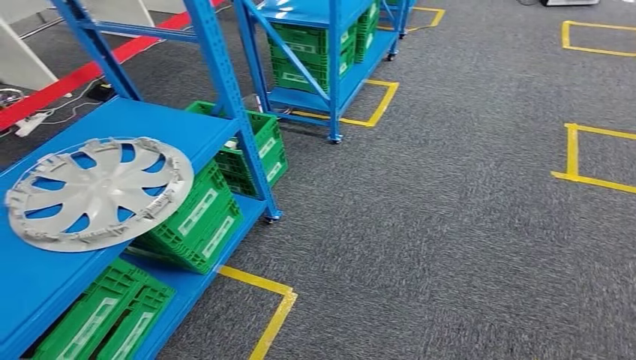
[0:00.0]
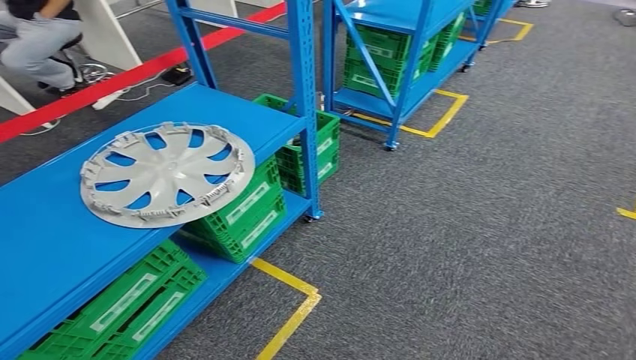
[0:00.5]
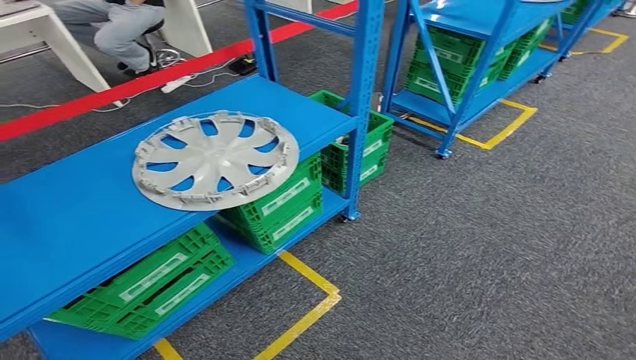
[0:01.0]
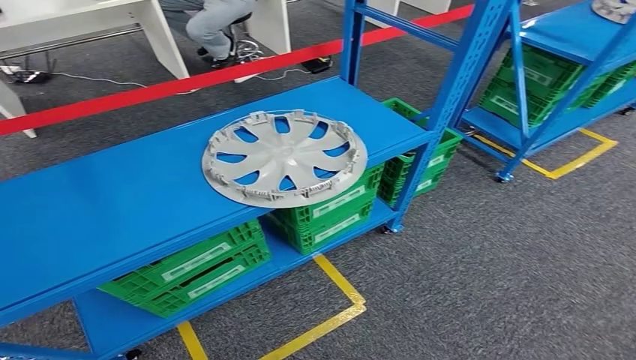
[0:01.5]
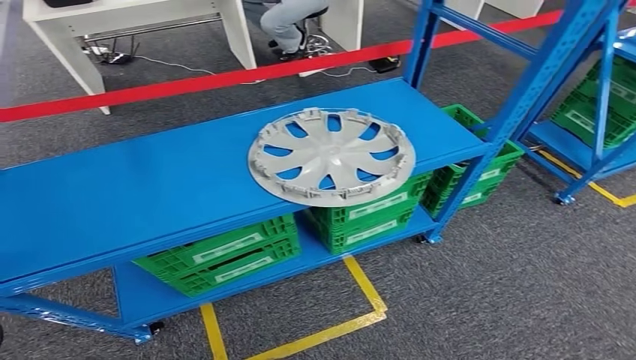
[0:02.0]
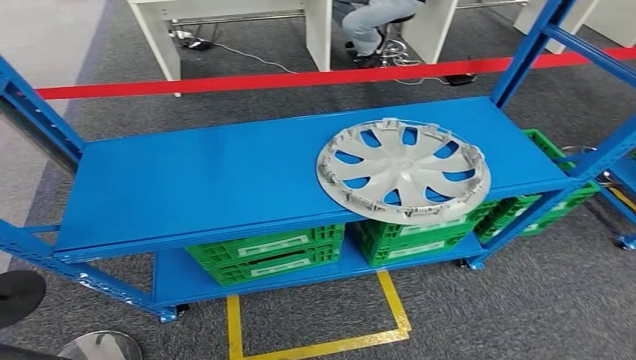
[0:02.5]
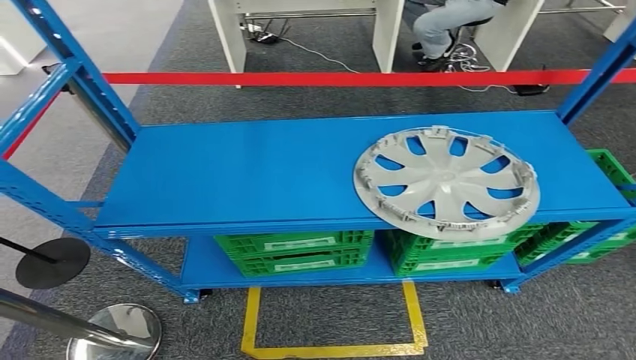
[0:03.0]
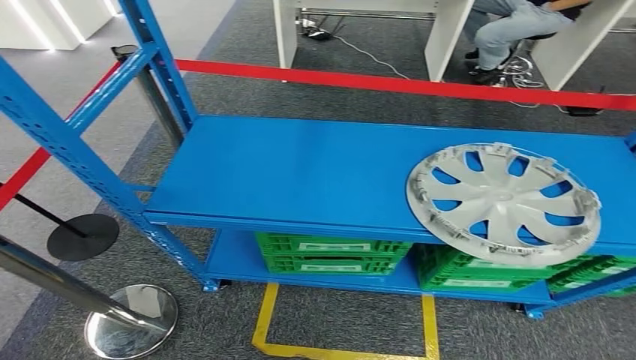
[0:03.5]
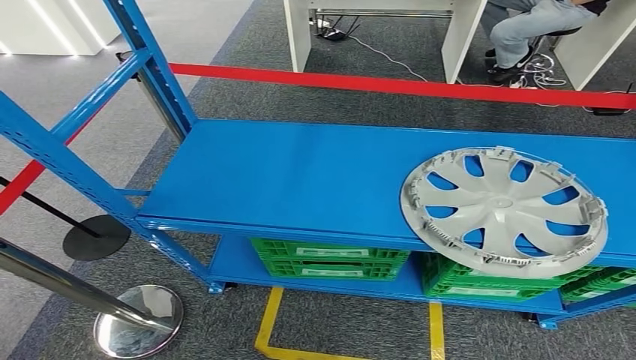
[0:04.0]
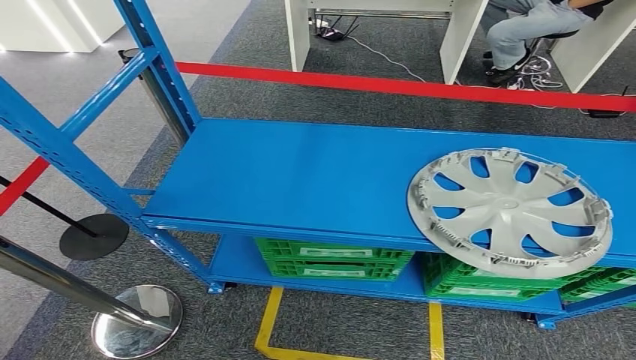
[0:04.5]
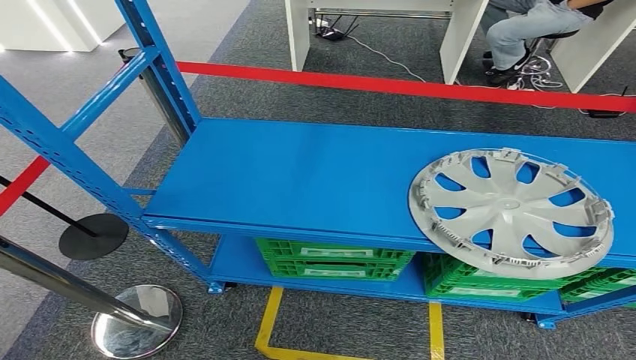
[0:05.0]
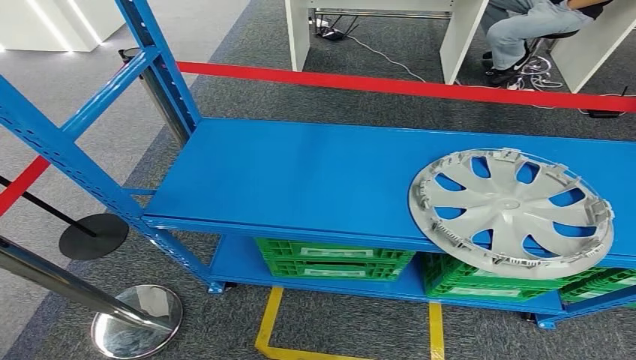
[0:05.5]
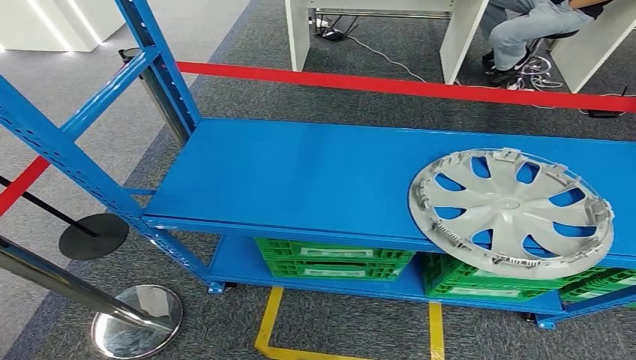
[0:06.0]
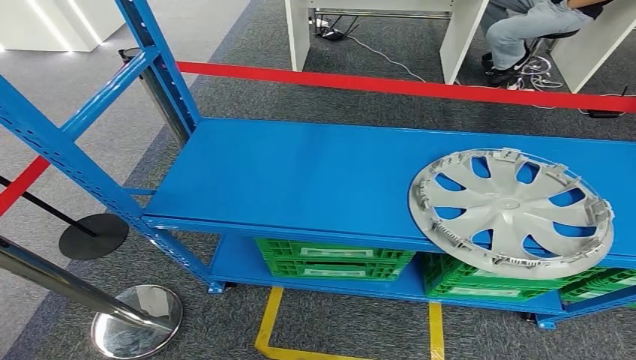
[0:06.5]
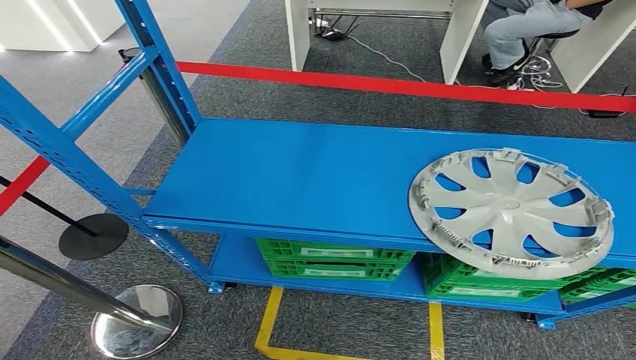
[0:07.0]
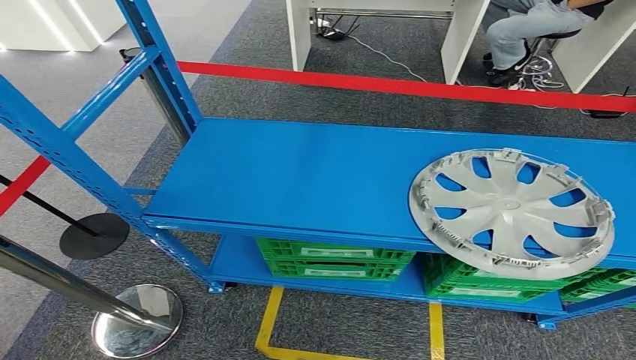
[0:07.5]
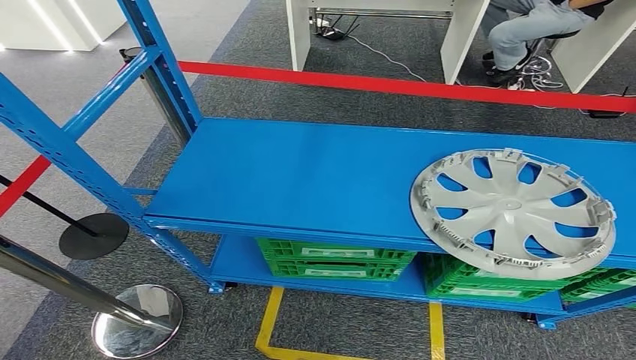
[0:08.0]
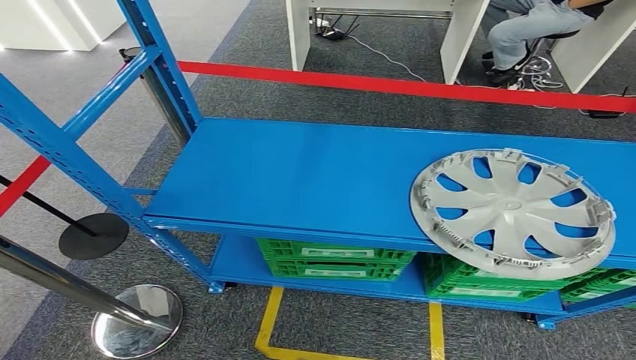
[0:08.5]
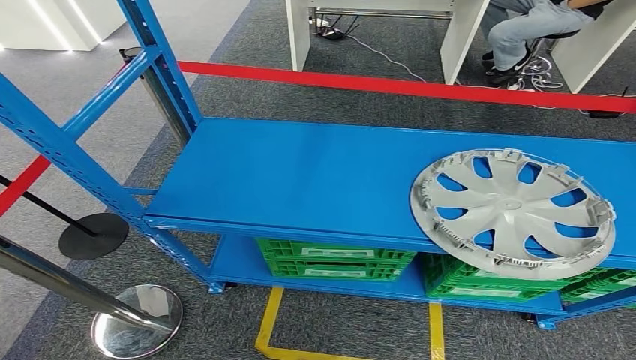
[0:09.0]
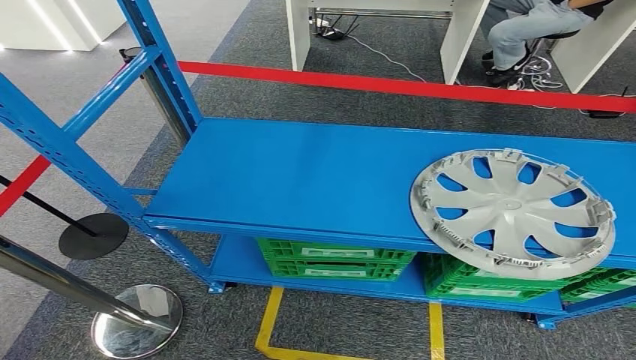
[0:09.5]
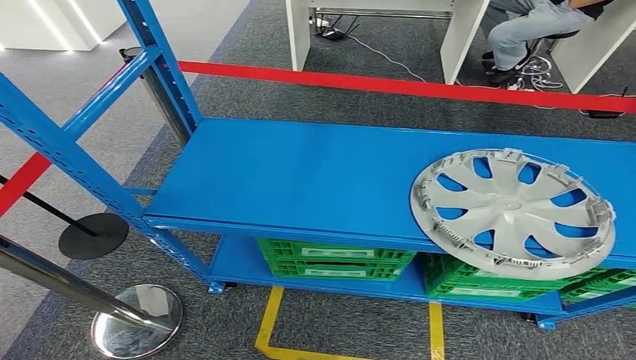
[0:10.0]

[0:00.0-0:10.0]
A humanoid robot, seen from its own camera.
Step, 0:00.0 to 0:10.0: Move to the initial position of the workbench.
0:04.0 to 0:06.0: The two hands keep their place.
0:06.0 to 0:08.0: The right hand is displaced to the left by approximately 5 cm.
